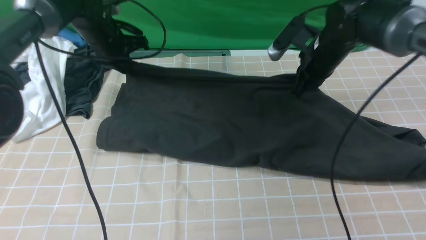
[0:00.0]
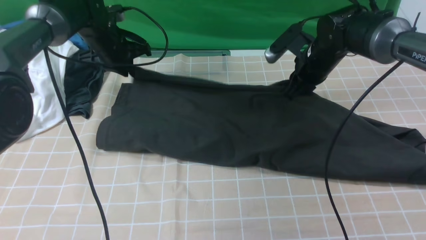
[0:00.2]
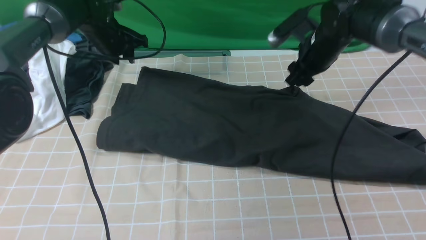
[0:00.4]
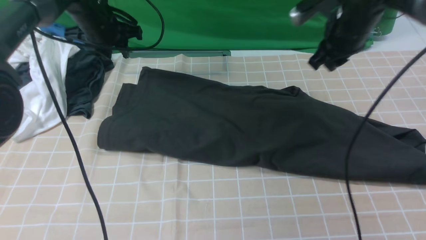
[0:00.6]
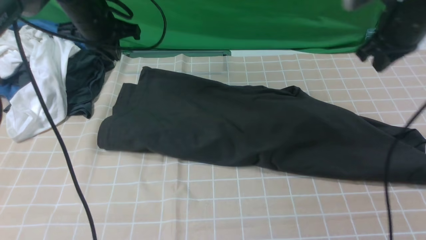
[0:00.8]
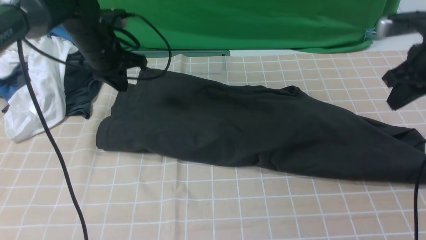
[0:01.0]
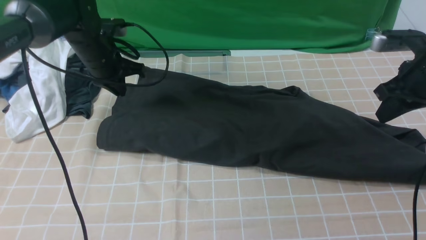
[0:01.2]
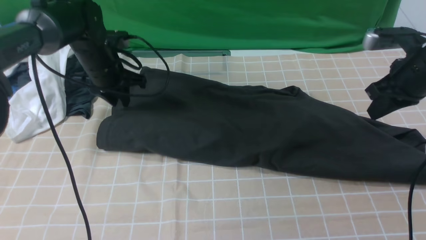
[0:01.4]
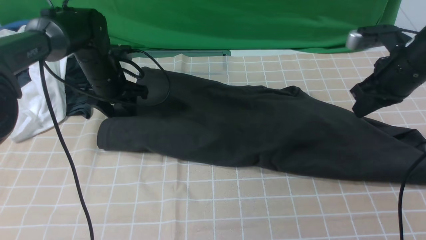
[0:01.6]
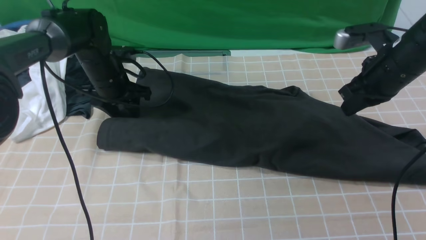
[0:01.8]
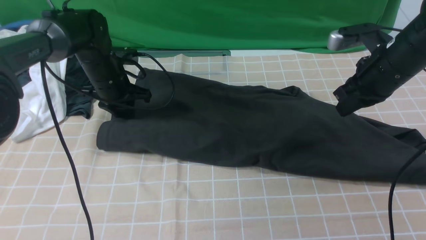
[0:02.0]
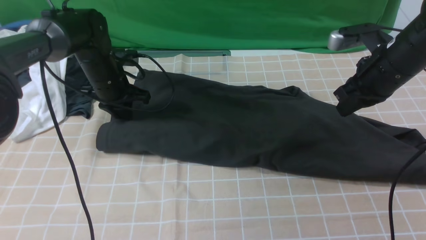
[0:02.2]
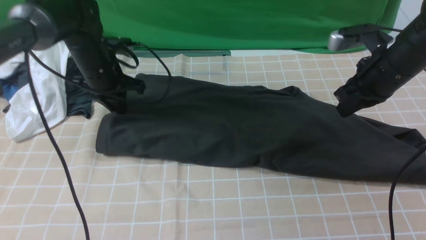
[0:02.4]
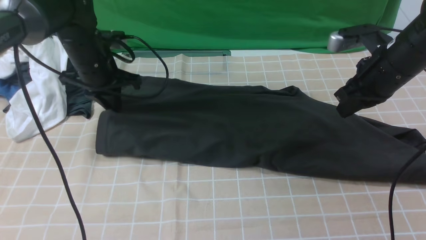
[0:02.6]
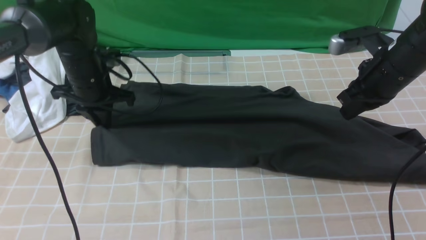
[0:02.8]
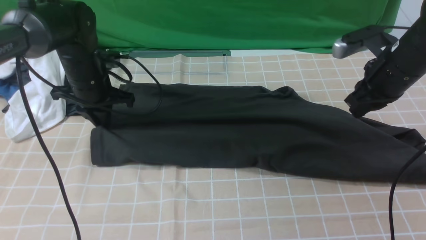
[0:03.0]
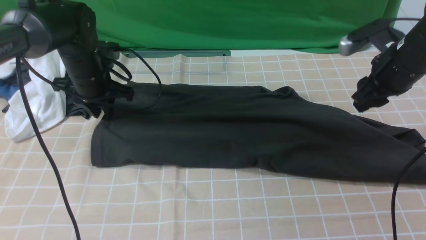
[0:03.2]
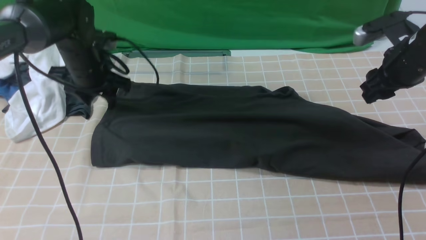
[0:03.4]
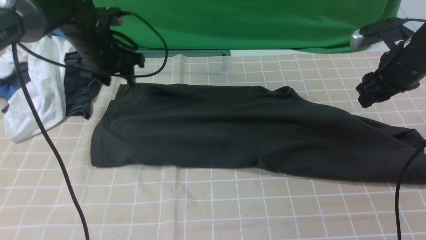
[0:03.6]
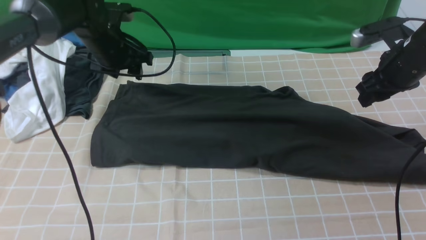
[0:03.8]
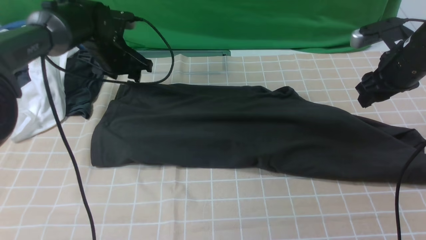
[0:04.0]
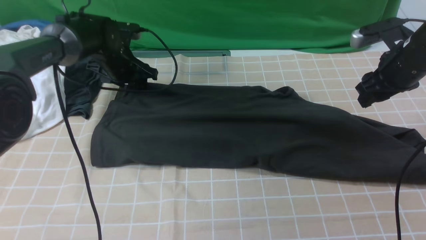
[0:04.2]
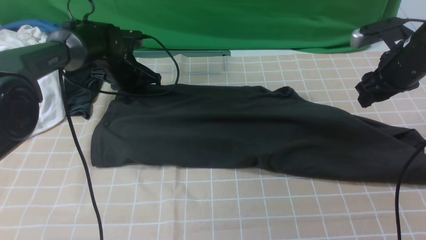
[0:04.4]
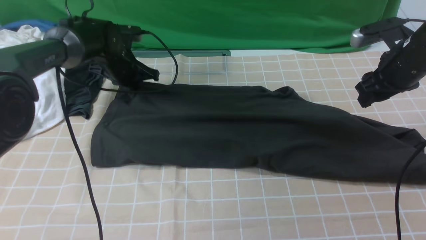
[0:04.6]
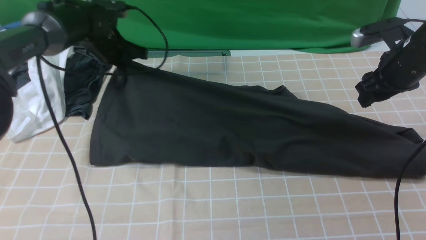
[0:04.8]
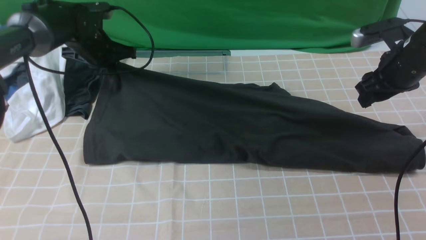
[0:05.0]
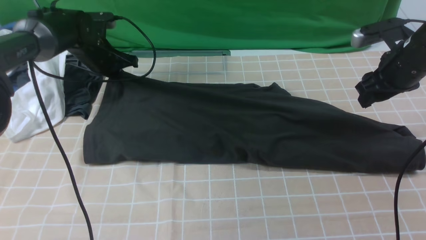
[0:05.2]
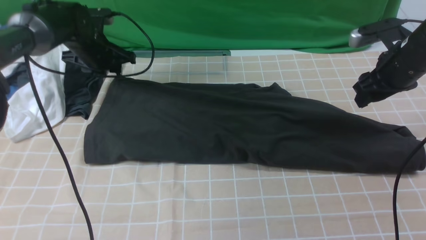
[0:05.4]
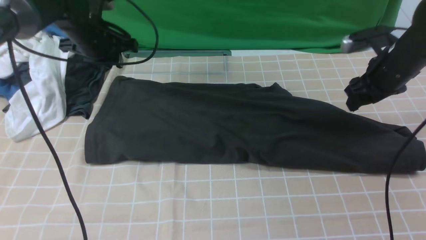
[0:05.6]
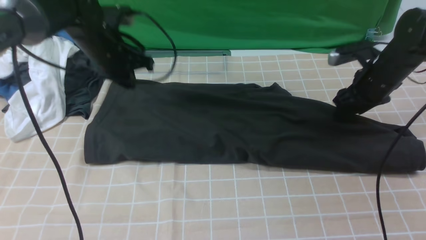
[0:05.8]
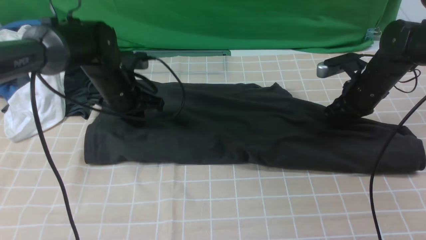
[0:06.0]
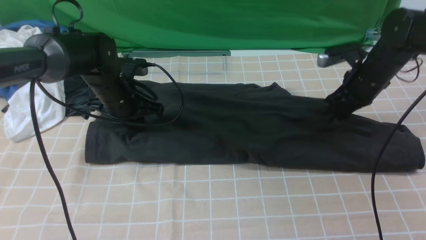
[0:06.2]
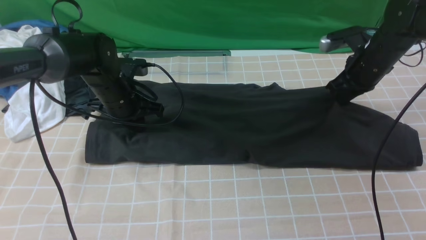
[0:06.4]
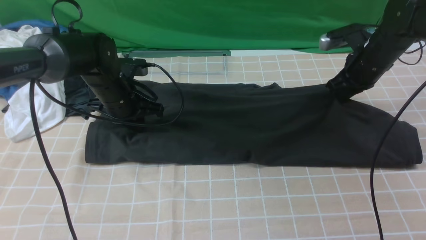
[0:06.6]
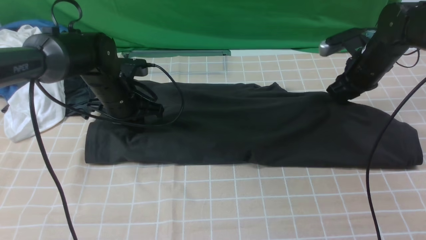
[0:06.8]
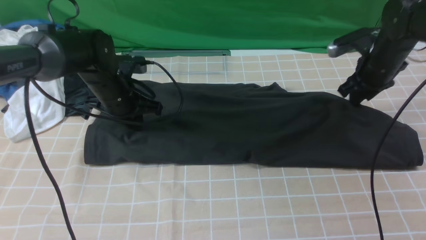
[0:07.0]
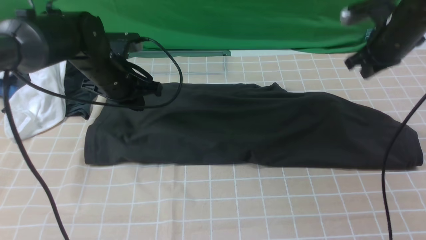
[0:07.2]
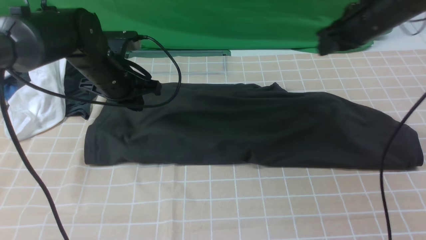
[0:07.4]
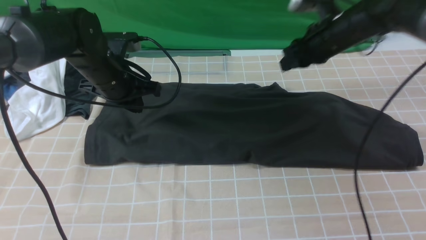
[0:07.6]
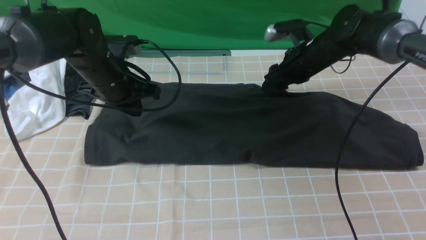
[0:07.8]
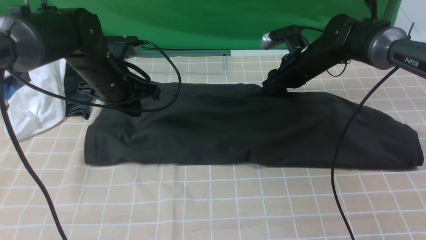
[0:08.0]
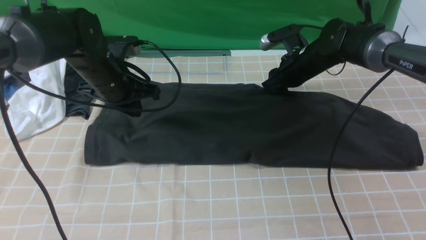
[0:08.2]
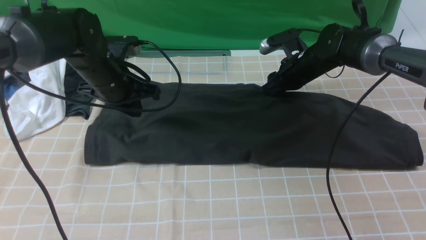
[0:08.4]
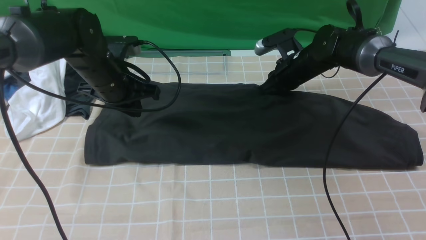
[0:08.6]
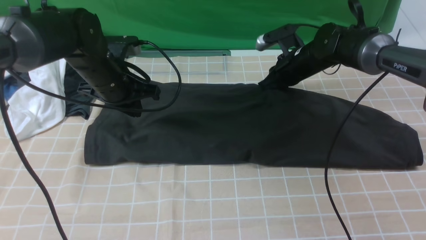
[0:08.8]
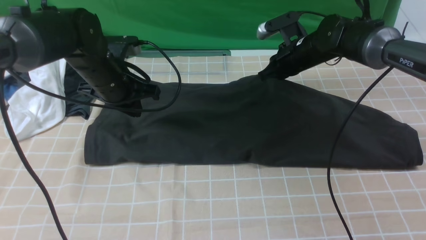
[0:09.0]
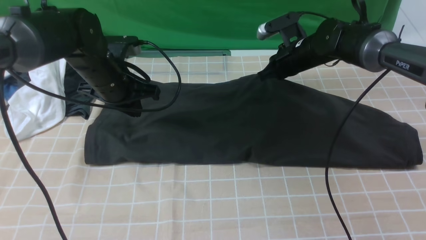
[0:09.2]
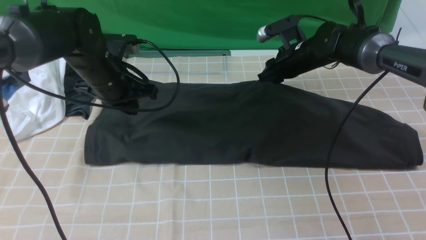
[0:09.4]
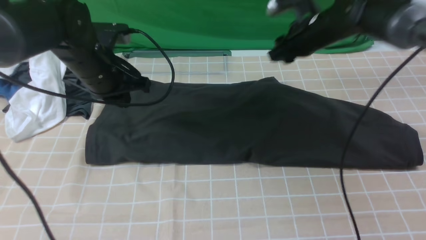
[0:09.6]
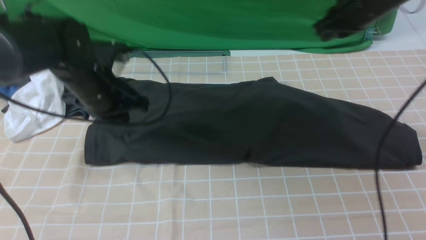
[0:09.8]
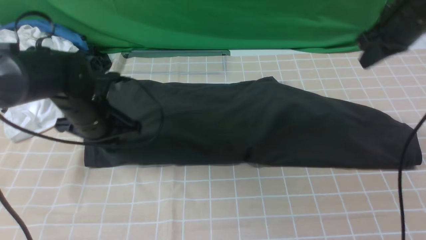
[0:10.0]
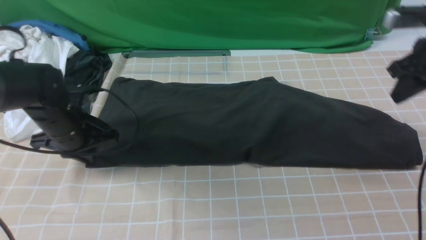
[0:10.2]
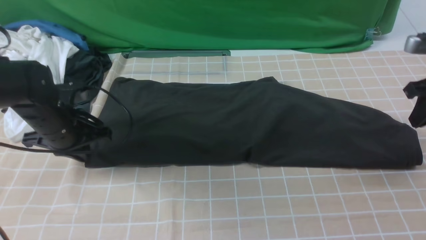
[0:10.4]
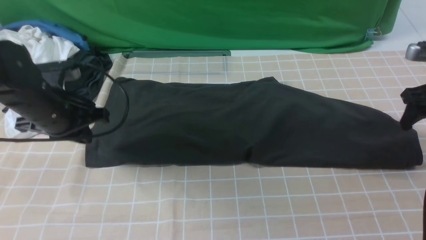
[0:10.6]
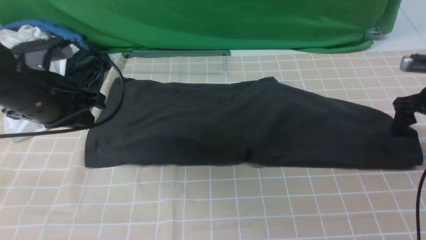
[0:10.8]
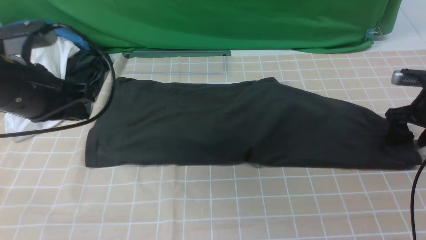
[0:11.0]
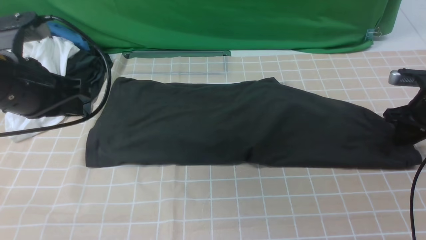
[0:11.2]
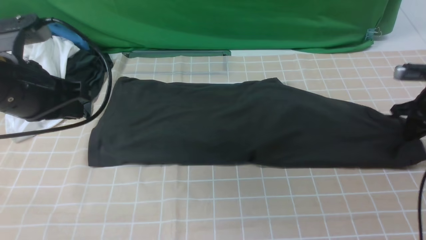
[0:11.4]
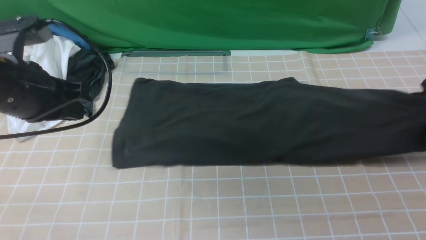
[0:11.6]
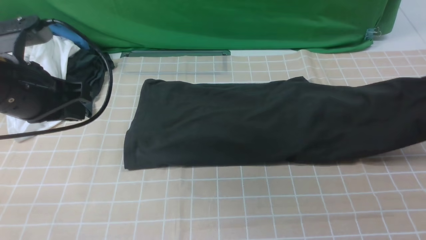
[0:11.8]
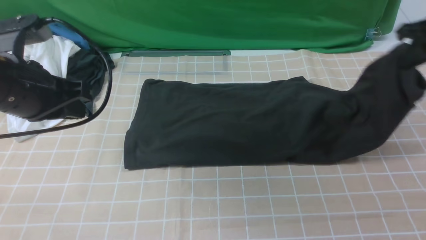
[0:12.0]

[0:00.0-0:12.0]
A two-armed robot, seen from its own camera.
Step, 0:00.4 to 0:11.2: use the right arm to clamp the right edge of the fabric.
0:00.0 to 0:01.6: The right gripper is displaced to the right and backward by approximately 15 cm, and opens and closes again, while the left gripper changes place by some 5 cm, and opens.
0:01.6 to 0:03.0: The left gripper closes its fingers.
0:03.0 to 0:04.4: The right gripper opens its fingers. Meanwhile the left gripper heads forward, covering about 5 cm, and opens and closes again.
0:04.4 to 0:06.0: The left gripper travels backward by approximately 10 cm, and closes, while the right gripper goes about 5 cm downward, and closes its fingers.
0:06.0 to 0:07.6: The right gripper shifts approximately 10 cm to the left and upward.
0:07.6 to 0:09.0: The right gripper shifts about 5 cm downward, and closes.
0:09.0 to 0:10.4: The right gripper shifts about 25 cm to the right and backward, while the left gripper is displaced to the left and backward by roughly 10 cm.
0:10.4 to 0:12.0: The right gripper goes some 5 cm upward, and opens, then closes once more. The left gripper shifts about 15 cm upward and backward.

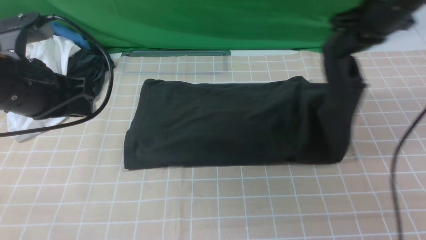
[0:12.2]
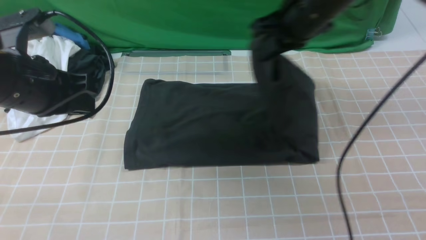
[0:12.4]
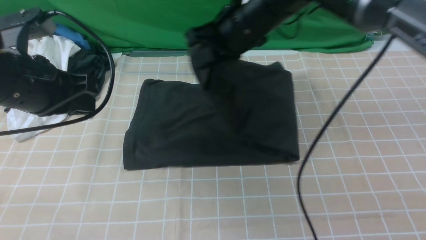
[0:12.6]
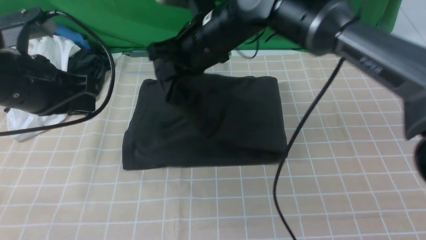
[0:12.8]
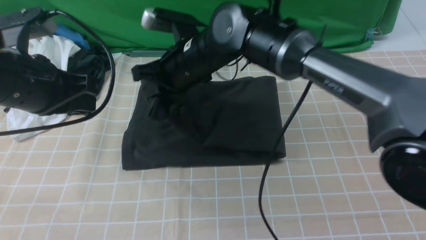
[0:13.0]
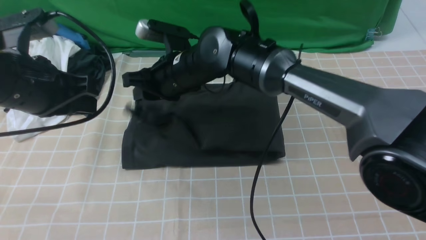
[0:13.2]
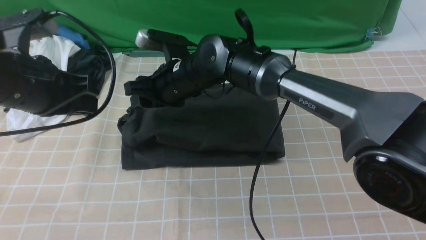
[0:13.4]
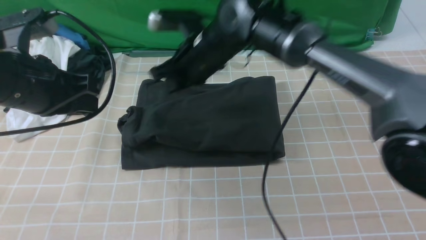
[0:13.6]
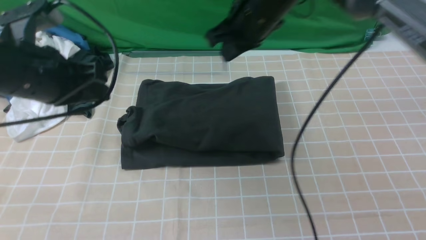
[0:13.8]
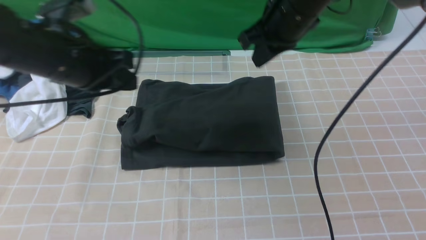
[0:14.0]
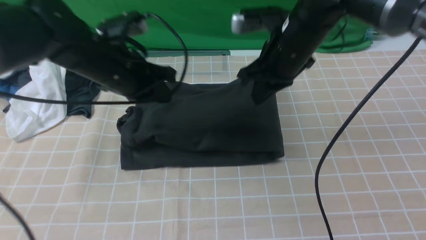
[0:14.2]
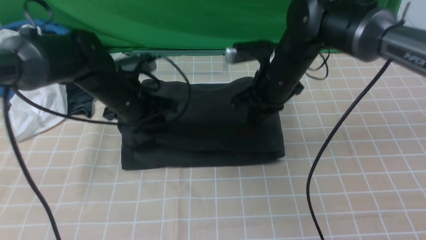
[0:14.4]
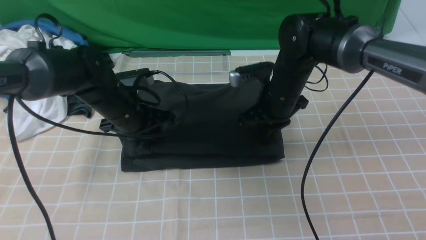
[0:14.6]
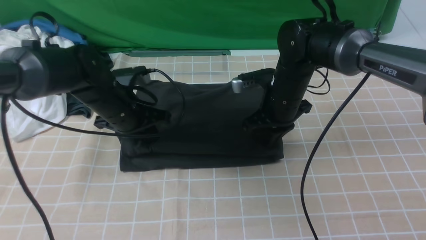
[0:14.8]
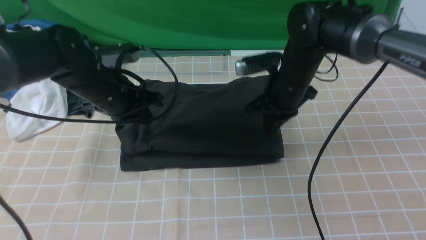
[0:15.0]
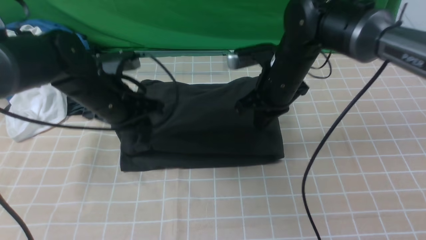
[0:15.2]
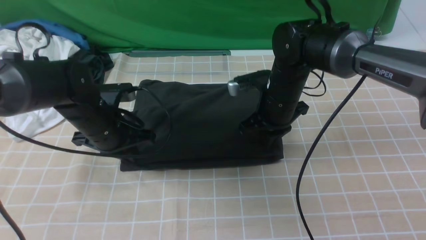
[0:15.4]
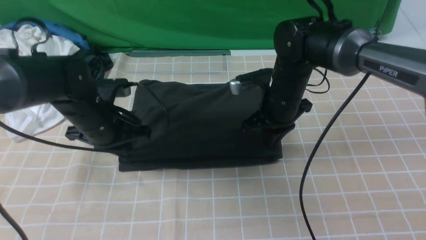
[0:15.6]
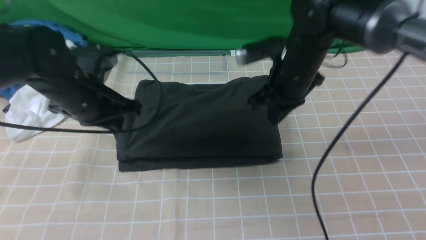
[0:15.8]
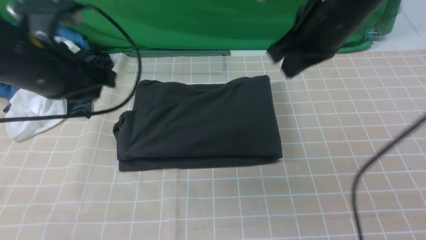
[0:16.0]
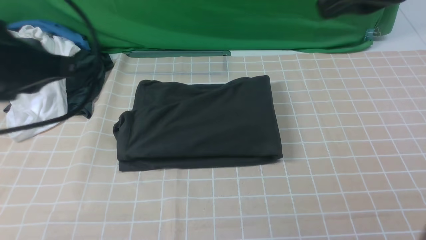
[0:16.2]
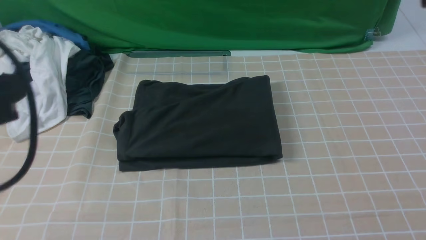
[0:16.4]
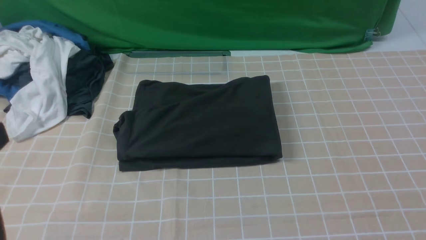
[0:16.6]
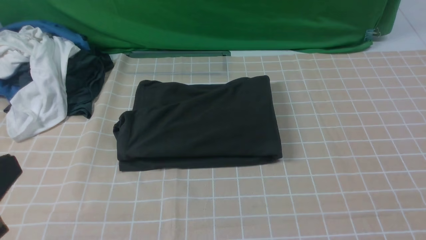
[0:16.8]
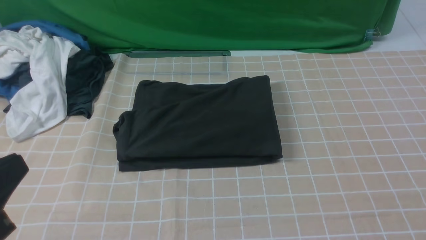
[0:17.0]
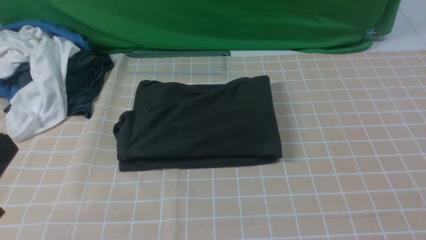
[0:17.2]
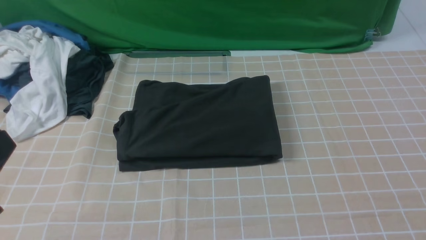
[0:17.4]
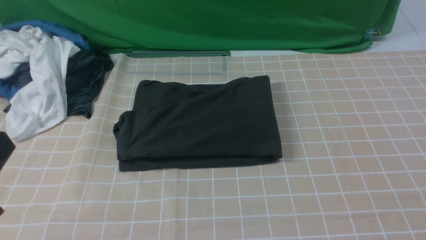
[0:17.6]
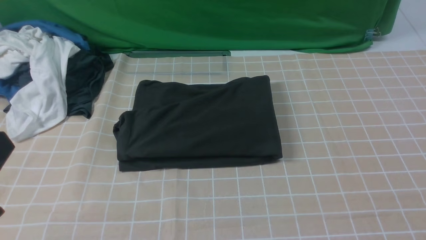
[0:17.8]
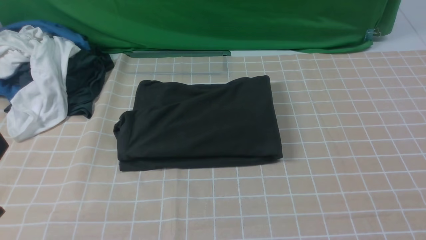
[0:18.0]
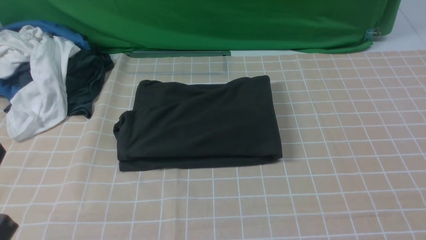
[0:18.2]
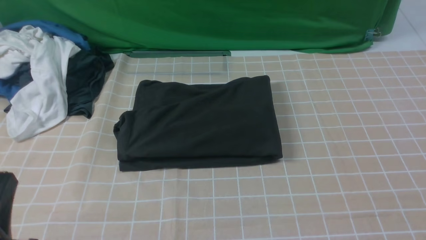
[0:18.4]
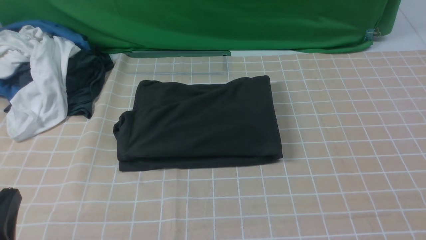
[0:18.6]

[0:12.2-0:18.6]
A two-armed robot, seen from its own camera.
Step, 0:12.2 to 0:13.2: use the right arm to drag the right edge of the fabric to the left and folds it over the left edge.
0:12.2 to 0:13.8: The right gripper goes roughly 15 cm to the left, and opens and closes again.
0:13.8 to 0:15.4: Both grippers move downward, roughly 10 cm.
0:15.4 to 0:17.0: The left gripper goes roughly 30 cm backward and upward. Meanwhile the right gripper travels backward, to the right and upward by approximately 40 cm.
0:17.0 to 0:18.6: The left gripper heads downward, covering some 10 cm.
